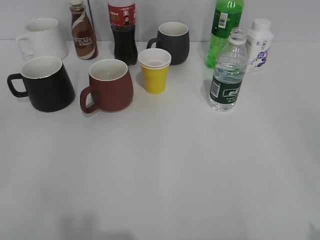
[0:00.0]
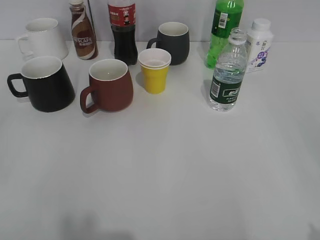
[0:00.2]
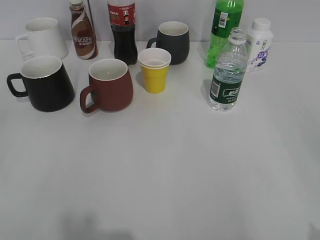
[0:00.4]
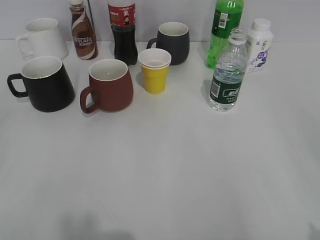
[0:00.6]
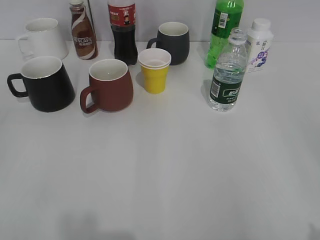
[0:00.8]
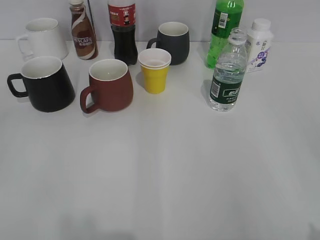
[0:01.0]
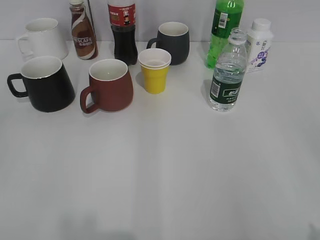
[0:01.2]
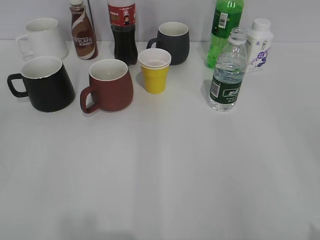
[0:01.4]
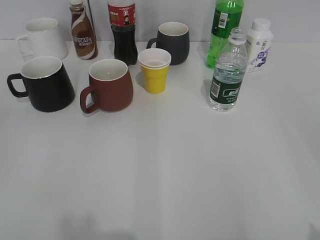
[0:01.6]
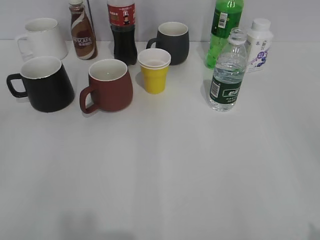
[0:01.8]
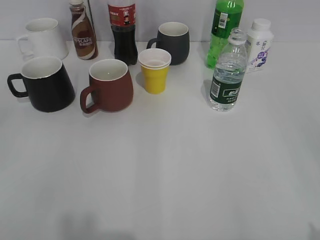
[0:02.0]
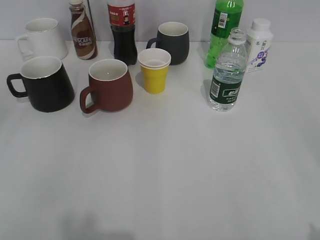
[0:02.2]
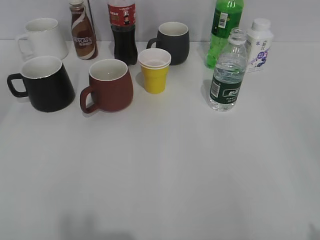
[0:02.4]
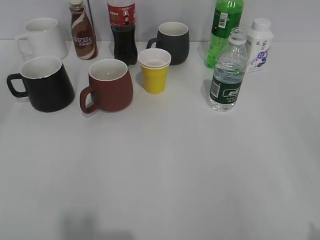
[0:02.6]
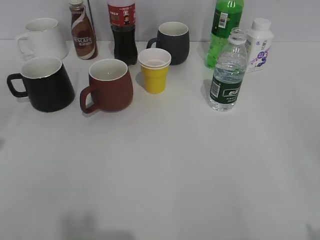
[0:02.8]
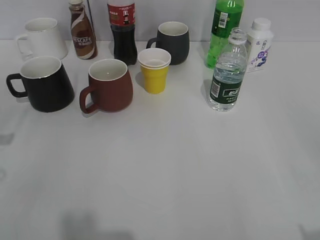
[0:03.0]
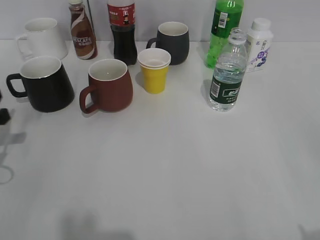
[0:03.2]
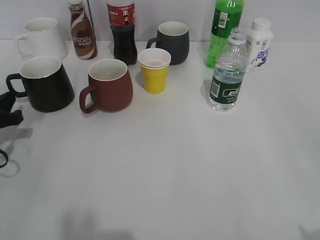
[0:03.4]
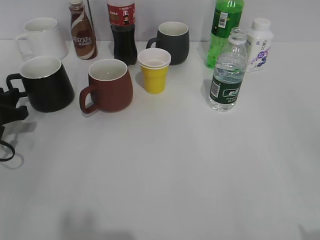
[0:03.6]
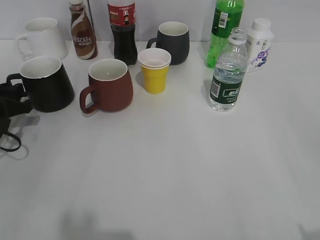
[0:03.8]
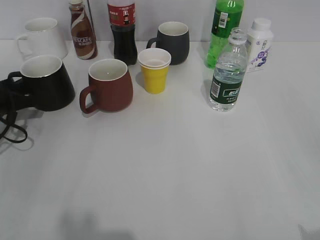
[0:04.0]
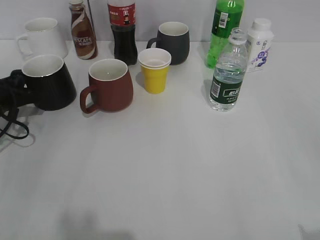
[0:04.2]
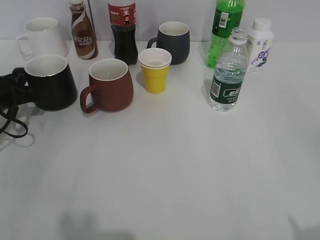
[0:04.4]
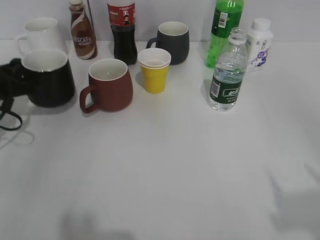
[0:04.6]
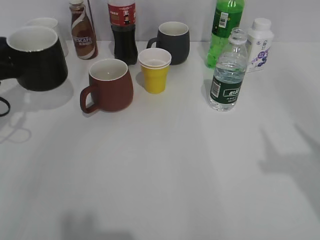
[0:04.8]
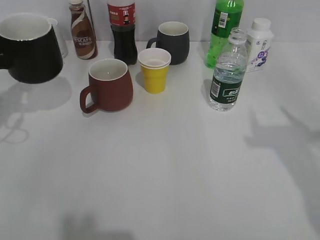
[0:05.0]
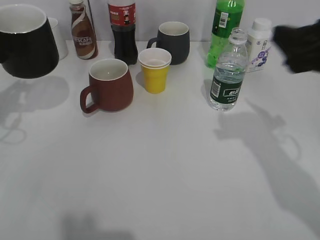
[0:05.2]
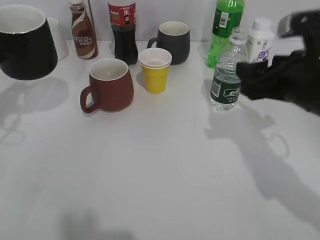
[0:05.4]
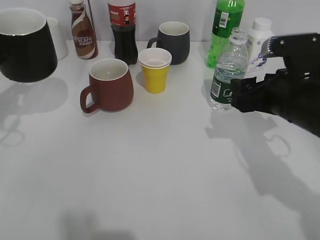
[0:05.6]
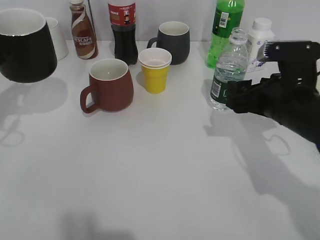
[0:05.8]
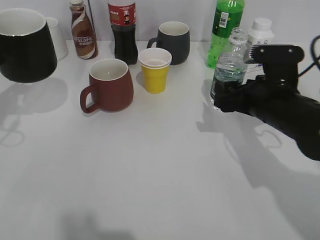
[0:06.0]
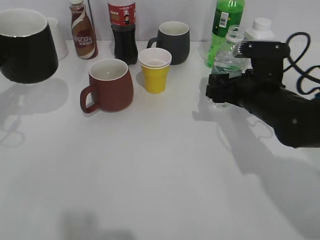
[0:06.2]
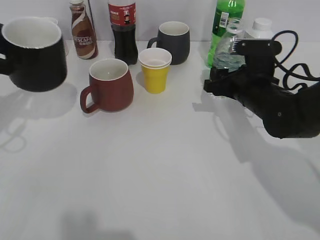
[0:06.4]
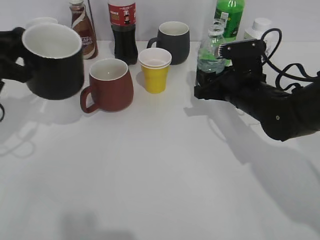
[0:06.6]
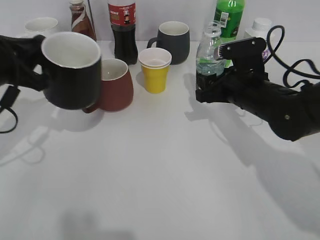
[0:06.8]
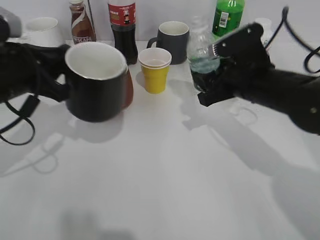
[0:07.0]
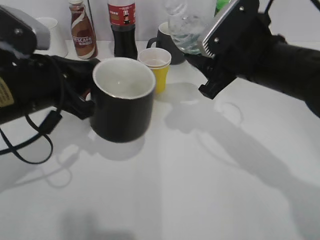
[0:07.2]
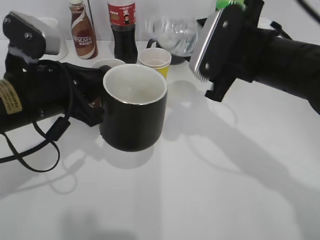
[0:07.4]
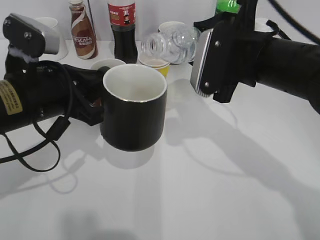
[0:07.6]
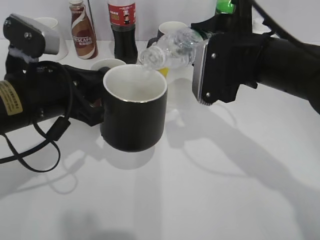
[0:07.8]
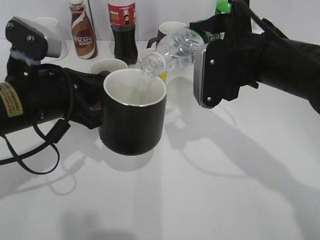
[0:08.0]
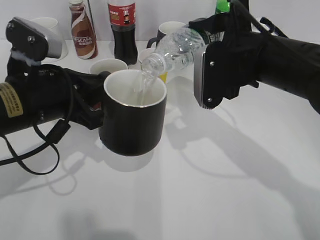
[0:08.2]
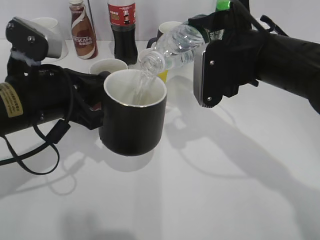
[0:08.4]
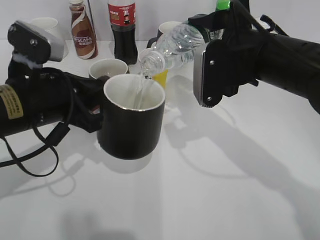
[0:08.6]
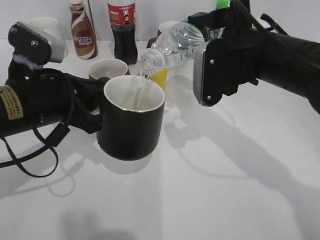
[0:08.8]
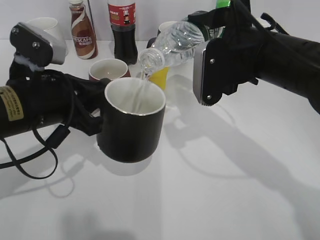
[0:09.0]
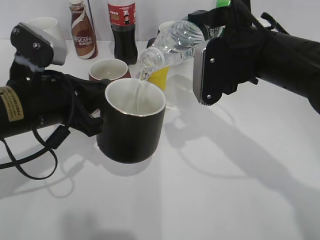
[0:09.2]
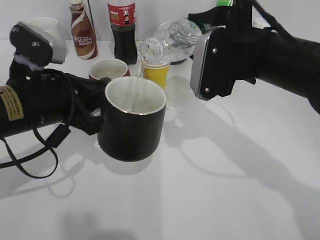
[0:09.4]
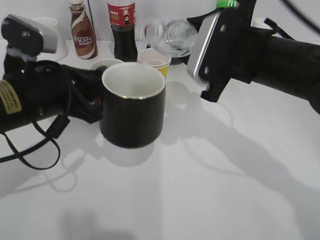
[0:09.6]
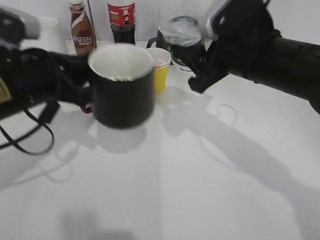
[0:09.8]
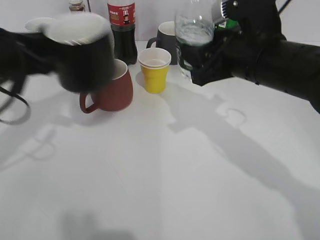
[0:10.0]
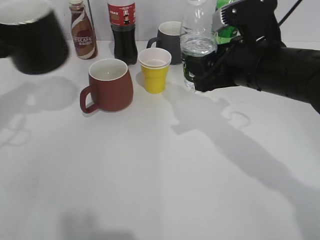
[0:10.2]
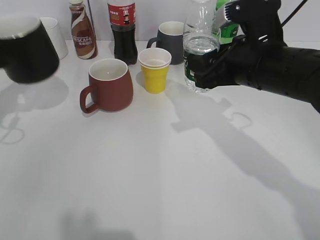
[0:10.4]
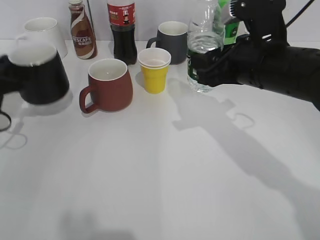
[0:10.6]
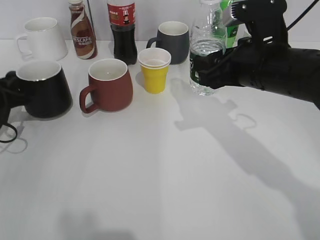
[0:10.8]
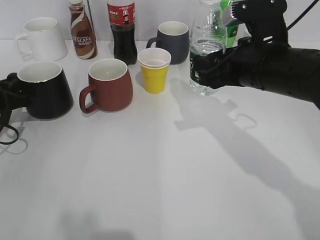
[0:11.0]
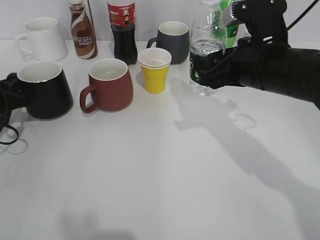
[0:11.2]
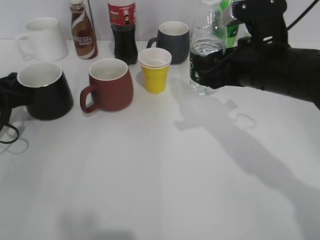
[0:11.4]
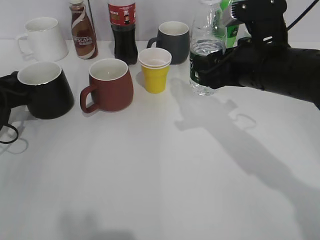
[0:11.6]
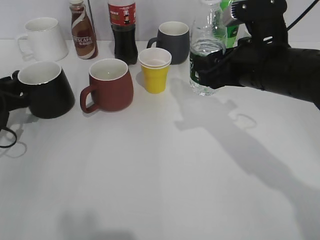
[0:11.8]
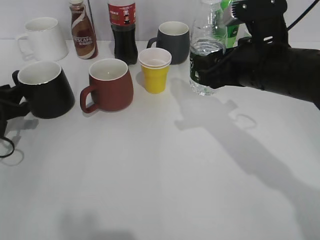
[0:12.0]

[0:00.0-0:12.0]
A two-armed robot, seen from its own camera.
Step, 0:01.8 to 0:04.0: Grasp the black cup with left gripper.
Step, 0:04.2 to 0:05.2: Lift the black cup with left gripper.
Step, 0:05.4 to 0:06.2: Grasp the bottle with water with right gripper.
Step, 0:06.6 to 0:09.4: Pour the water from bottle to cup with right gripper.
Step, 0:09.6 to 0:11.6: Place the black cup on the table with left gripper.
0:01.6 to 0:03.0: The left gripper is displaced forward and downward by some 25 cm.
0:03.0 to 0:04.4: The left gripper goes approximately 15 cm forward and downward, and closes up.
0:04.4 to 0:06.0: The right gripper goes roughly 30 cm forward and downward; the left gripper moves upward, roughly 10 cm.
0:06.0 to 0:07.6: The left gripper goes roughly 15 cm to the right. Meanwhile the right gripper is displaced upward by roughly 10 cm, and closes.
0:07.6 to 0:09.0: The grippers make only small movements.
0:09.0 to 0:10.4: The left gripper shifts some 15 cm to the left and forward.
0:10.4 to 0:12.0: The left gripper moves downward, roughly 10 cm, and opens.

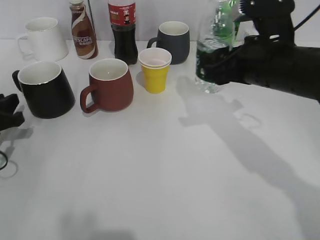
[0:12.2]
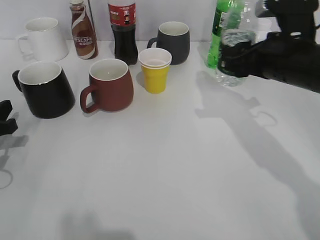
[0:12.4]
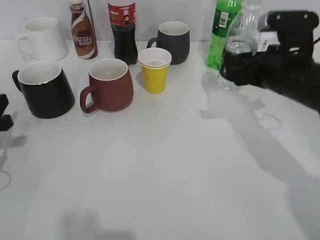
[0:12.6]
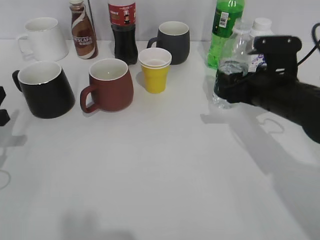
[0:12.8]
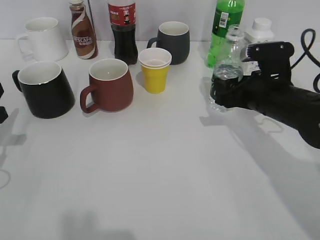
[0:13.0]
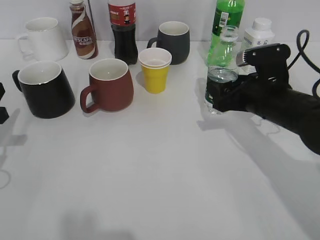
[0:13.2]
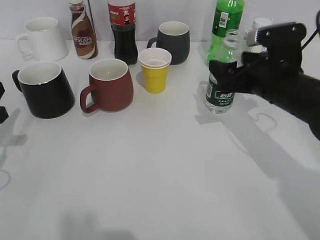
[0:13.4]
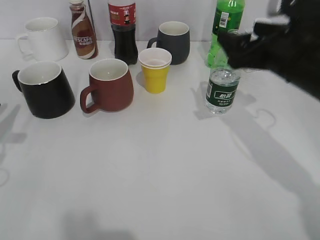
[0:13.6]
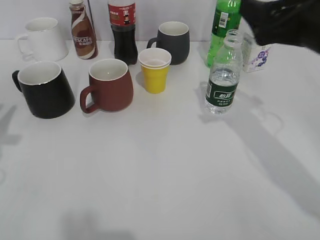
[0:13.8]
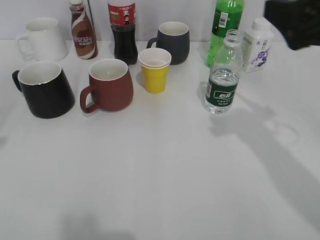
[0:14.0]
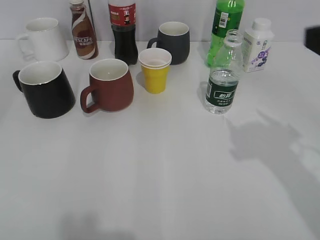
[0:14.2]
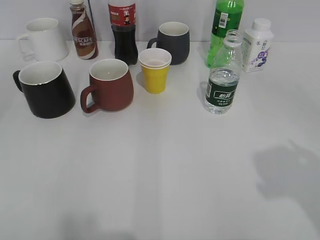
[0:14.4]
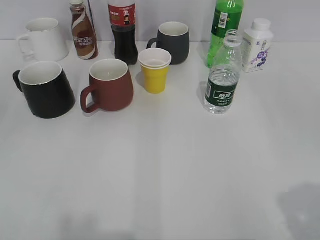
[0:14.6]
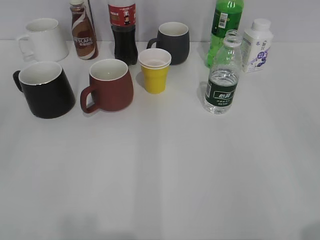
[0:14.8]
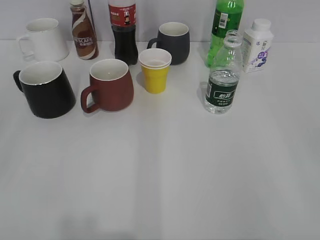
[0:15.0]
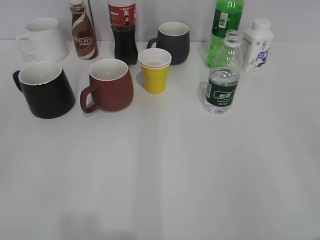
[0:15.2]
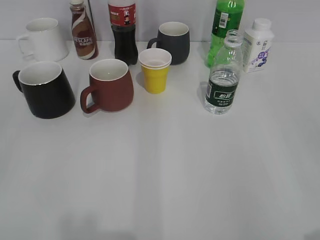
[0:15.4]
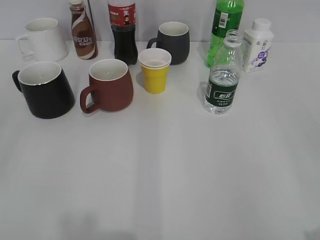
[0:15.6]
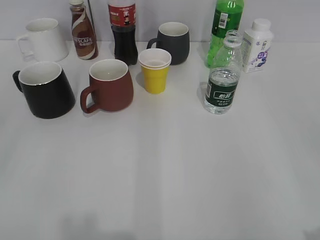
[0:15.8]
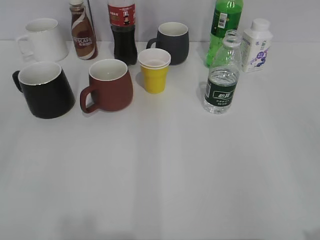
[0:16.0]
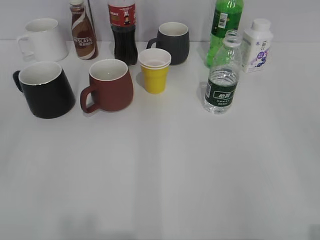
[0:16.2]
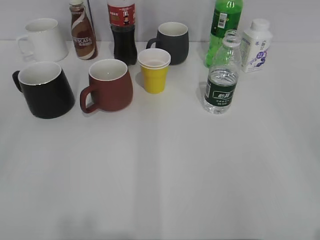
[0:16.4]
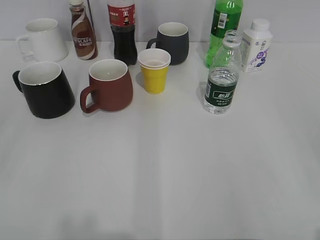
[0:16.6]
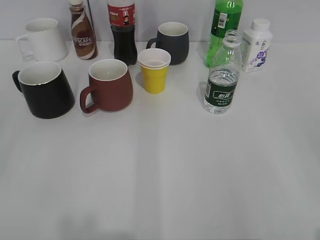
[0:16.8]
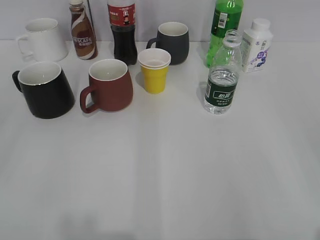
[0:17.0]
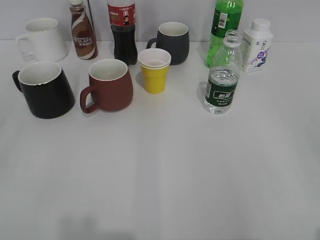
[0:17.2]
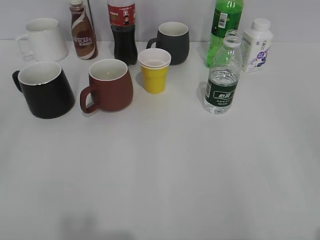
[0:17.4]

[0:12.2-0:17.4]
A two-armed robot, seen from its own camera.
Step, 0:12.2 to 0:13.2: Place the water bottle on the table with right gripper.
0:12.2 to 0:14.0: The left gripper heads upward and backward, covering some 15 cm. Meanwhile the right gripper is displaced upward, to the right and backward by about 10 cm, and opens its fingers.
0:14.0 to 0:15.6: The right gripper goes roughly 20 cm backward.
